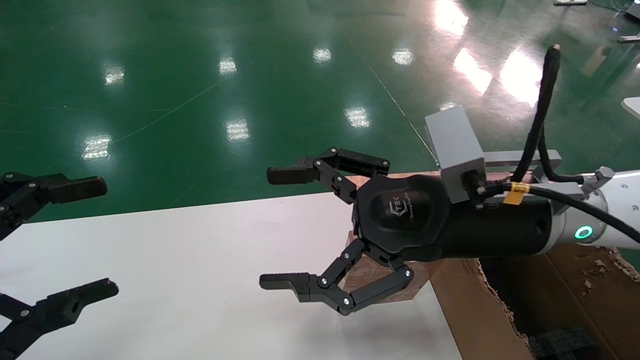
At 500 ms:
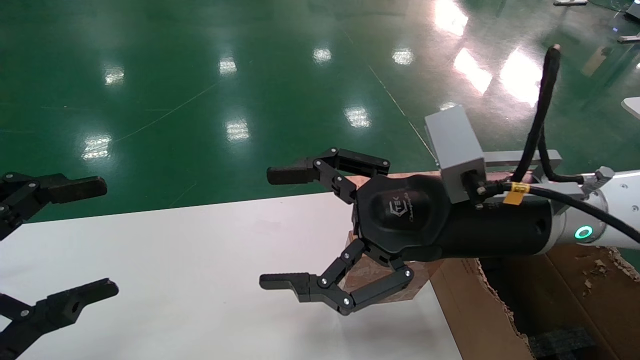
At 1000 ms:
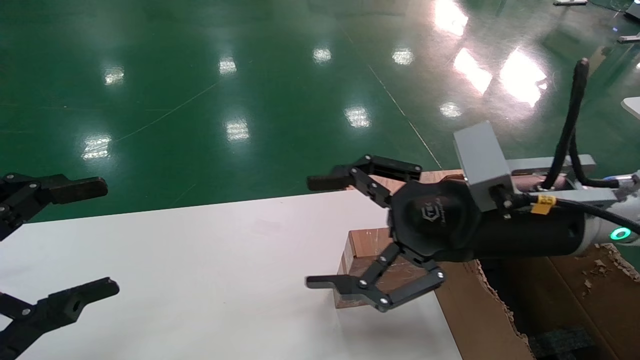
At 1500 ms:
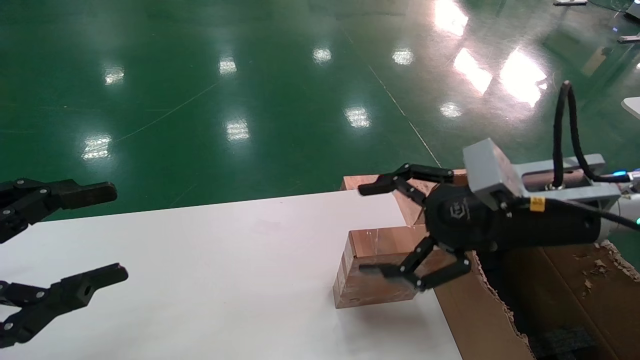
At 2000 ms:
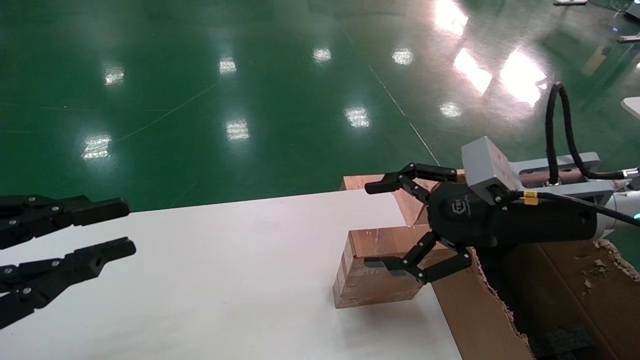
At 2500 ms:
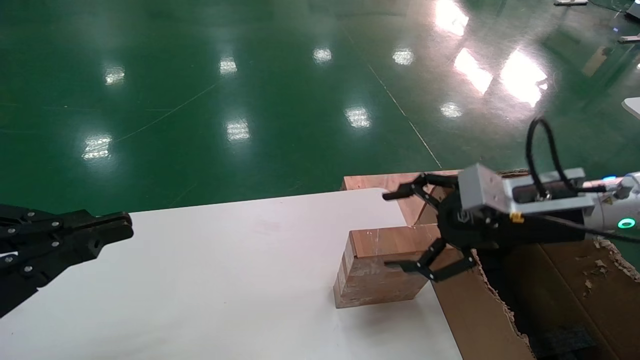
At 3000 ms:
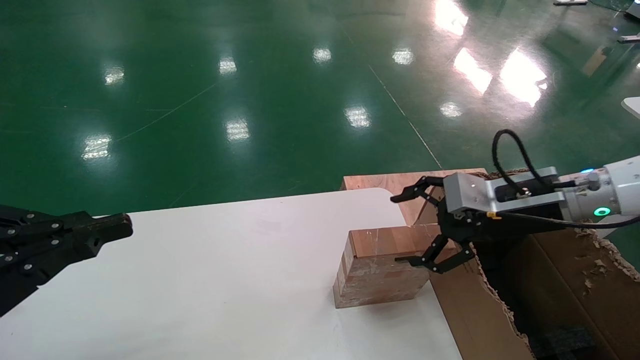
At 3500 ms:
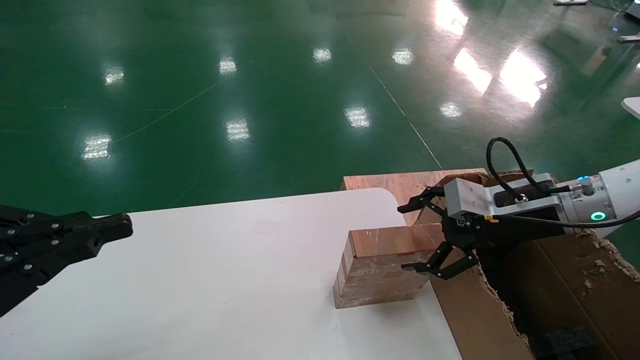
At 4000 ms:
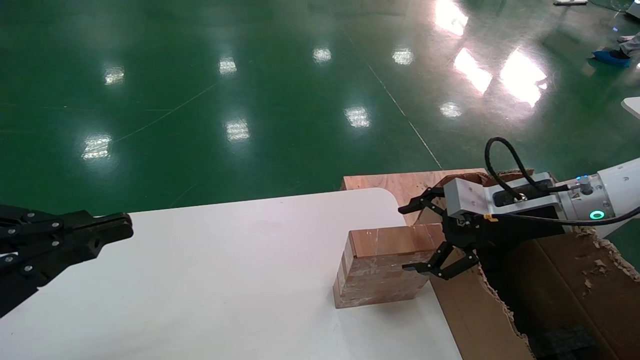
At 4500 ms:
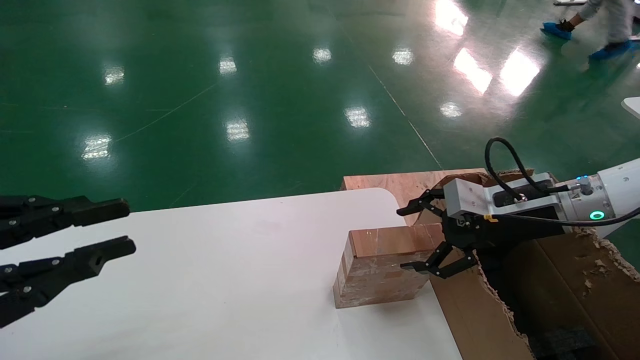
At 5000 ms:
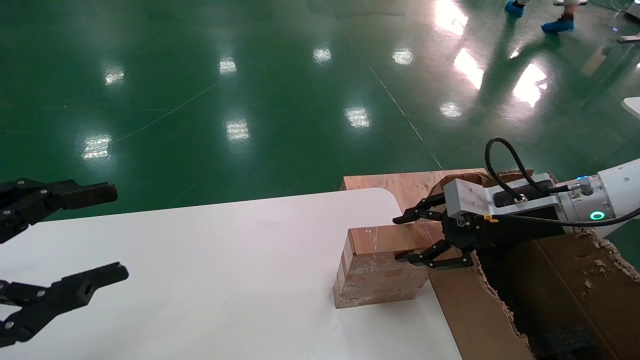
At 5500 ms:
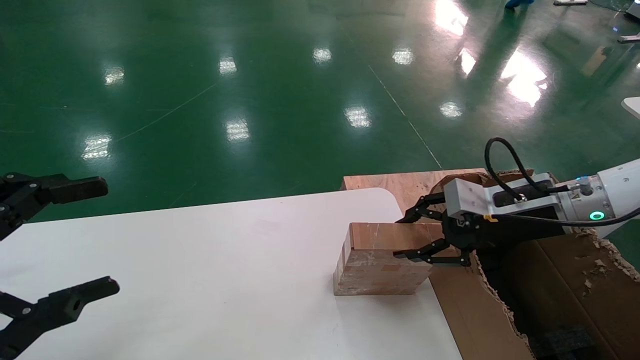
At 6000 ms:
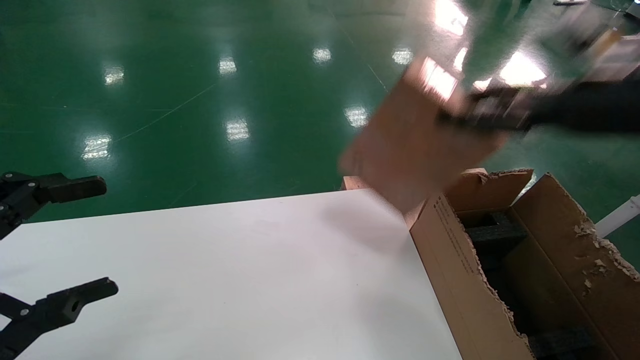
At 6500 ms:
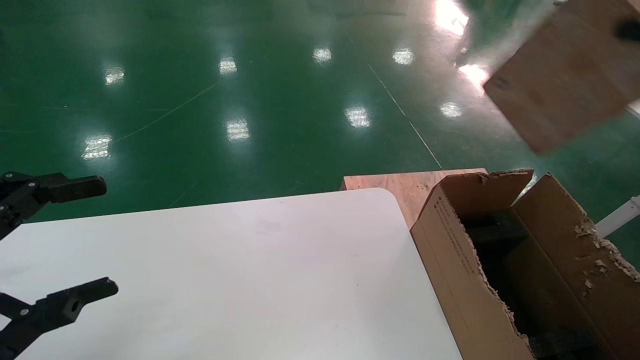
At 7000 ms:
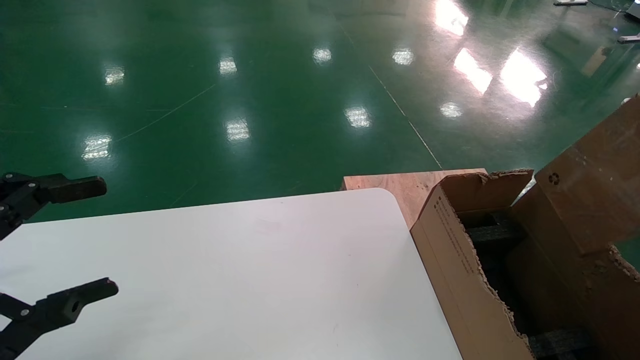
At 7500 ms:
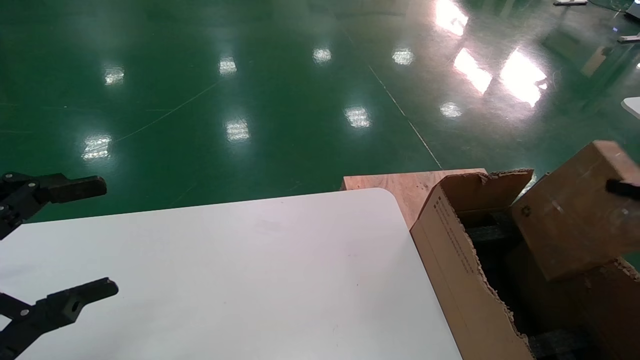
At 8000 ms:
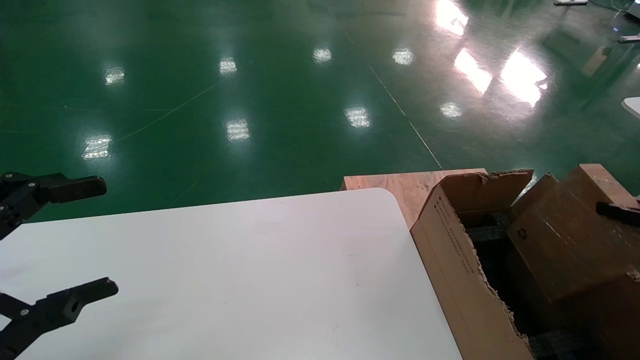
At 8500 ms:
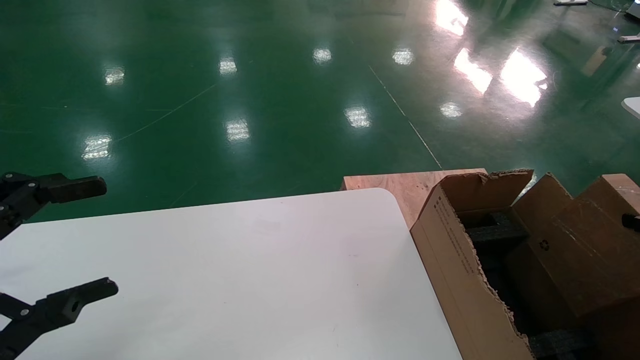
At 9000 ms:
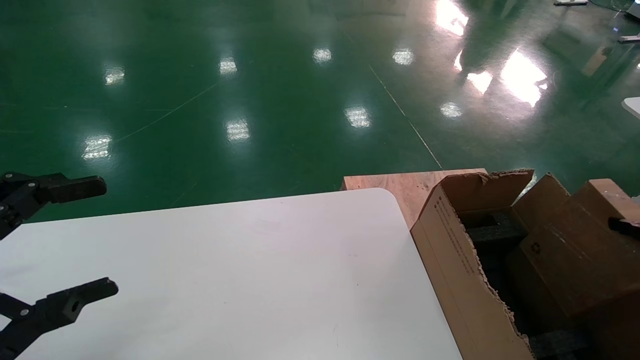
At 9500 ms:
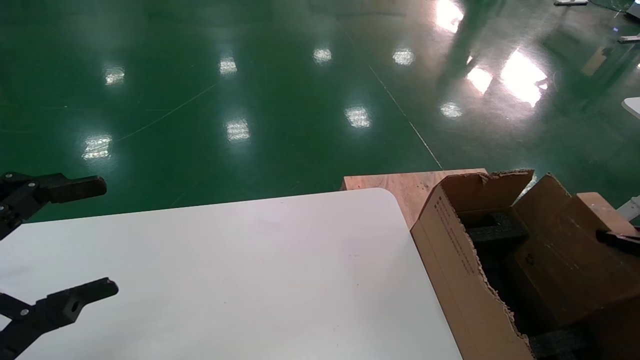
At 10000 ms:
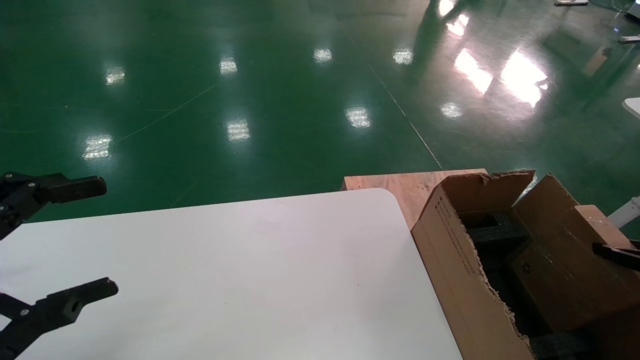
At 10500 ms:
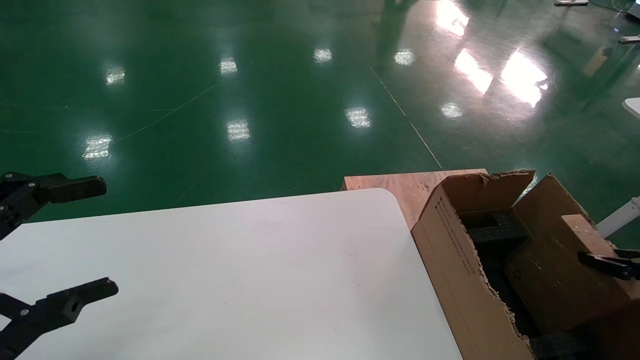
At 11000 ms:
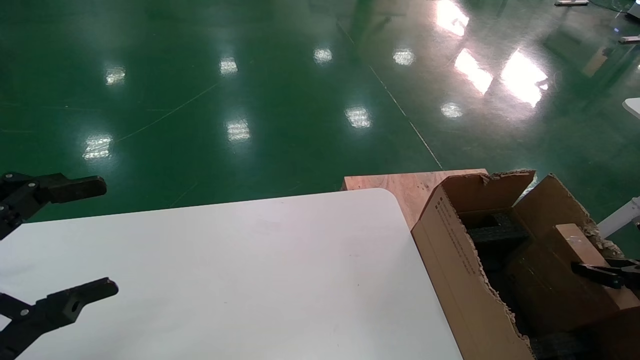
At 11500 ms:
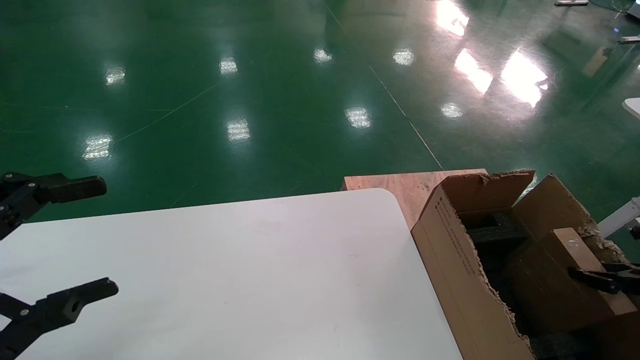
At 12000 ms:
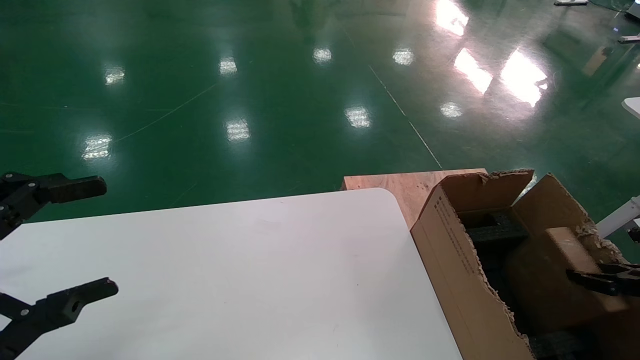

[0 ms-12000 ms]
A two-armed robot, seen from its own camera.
Task of the whole recording: put the box on the table into the big box.
Step, 1500 ms to 5000 ms: Pick up the mouse and the power cord paper box.
0 ms to 2000 ms: The right gripper heads to the right, covering about 10 cm, while the left gripper closes up.
2000 ms to 4000 ms: The left gripper closes its fingers, while the right gripper moves forward and to the right, about 10 cm.
4000 ms to 6000 ms: The right gripper is displaced upward by some 15 cm, and closes up; the left gripper opens up.
6000 ms to 8000 ms: The right gripper travels downward, to the right and backward by approximately 25 cm.
8000 ms to 10000 ms: The right gripper is displaced downward by roughly 5 cm.
10000 ms to 12000 ms: The right gripper changes place by some 5 cm.

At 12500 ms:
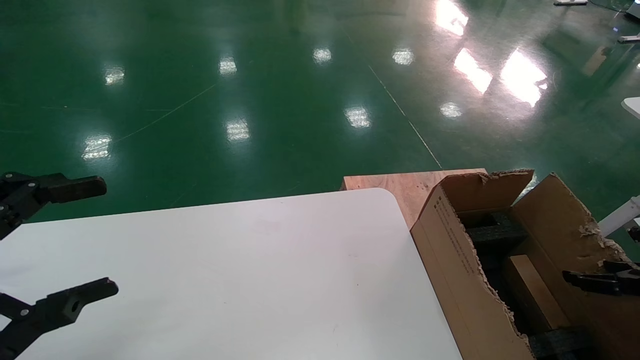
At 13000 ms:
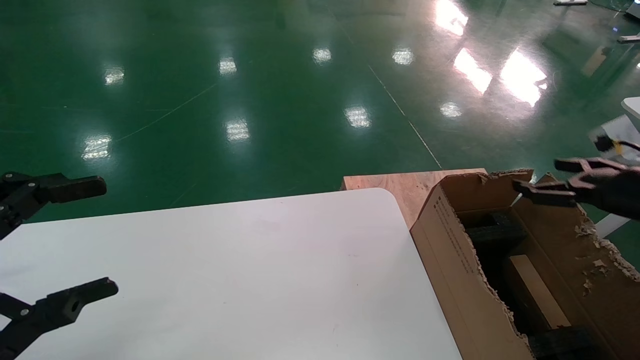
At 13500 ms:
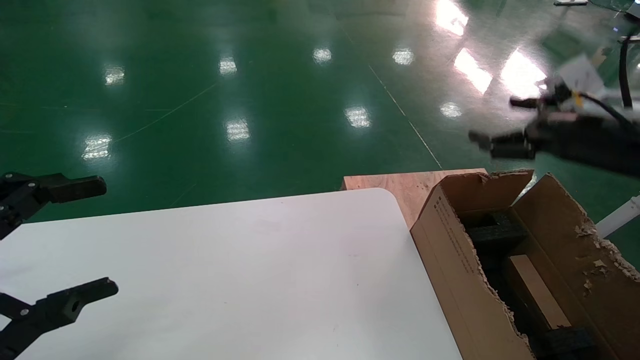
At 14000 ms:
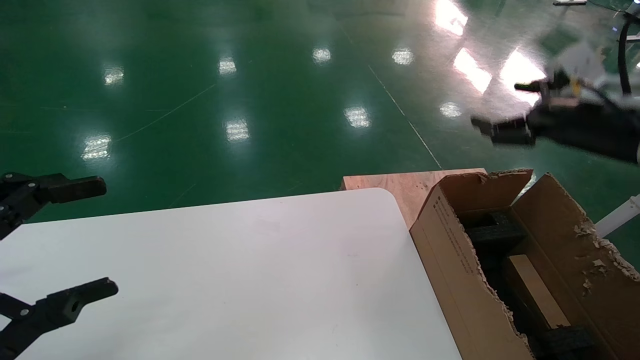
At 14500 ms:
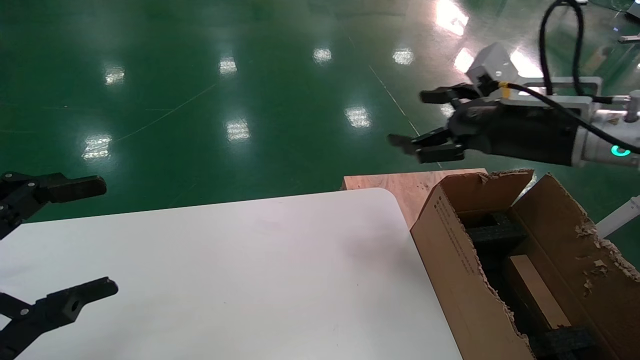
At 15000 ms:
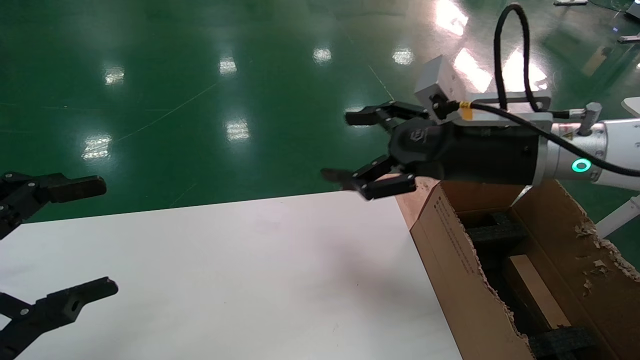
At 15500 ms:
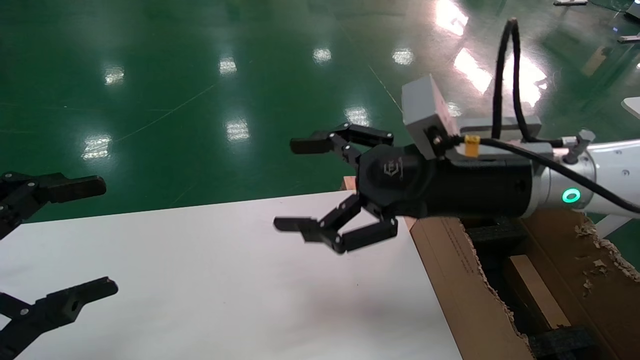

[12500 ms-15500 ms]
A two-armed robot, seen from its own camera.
Task of the whole recording: put the box on the table into the big box.
12500 ms to 14000 ms: The right gripper travels upward, to the left and forward by approximately 25 cm, and opens.
14000 ms to 15500 ms: The right gripper is displaced to the left by about 20 cm.
